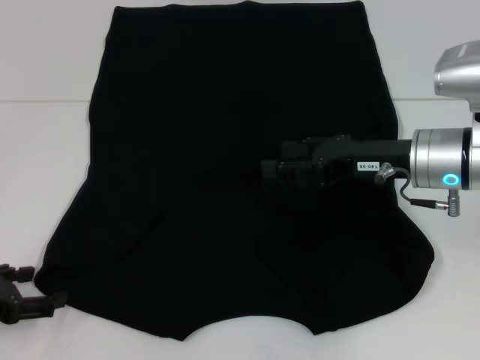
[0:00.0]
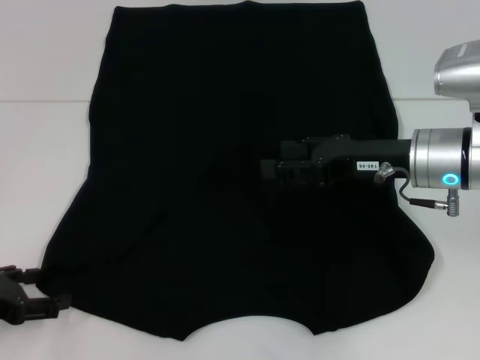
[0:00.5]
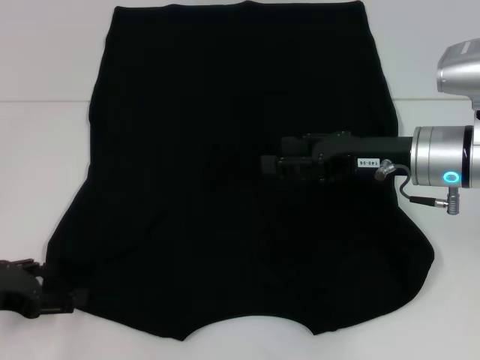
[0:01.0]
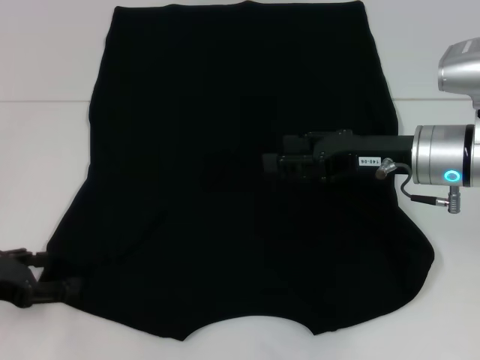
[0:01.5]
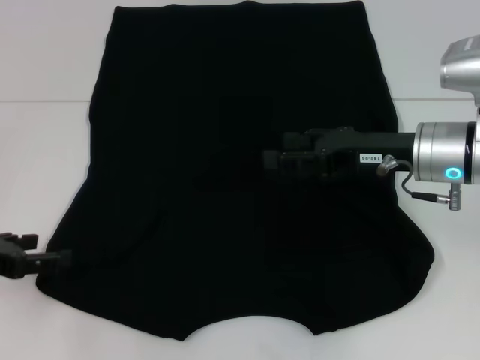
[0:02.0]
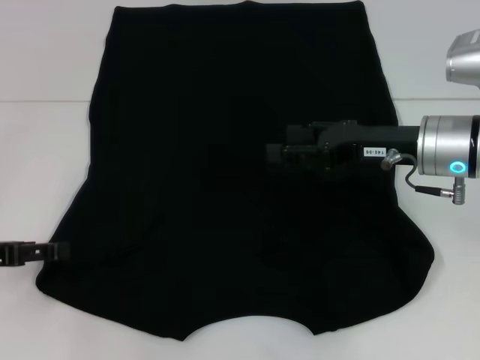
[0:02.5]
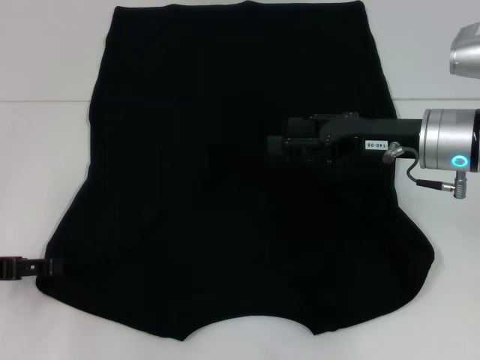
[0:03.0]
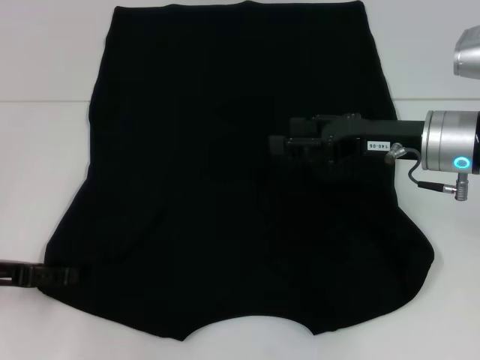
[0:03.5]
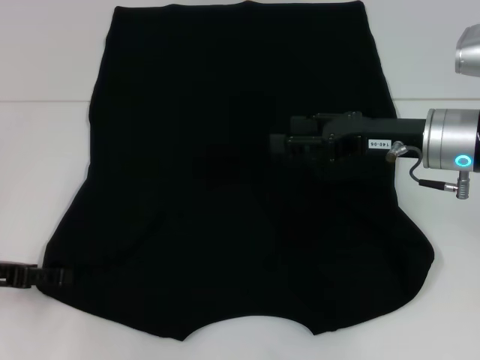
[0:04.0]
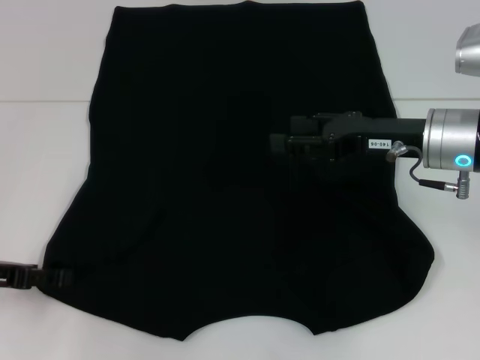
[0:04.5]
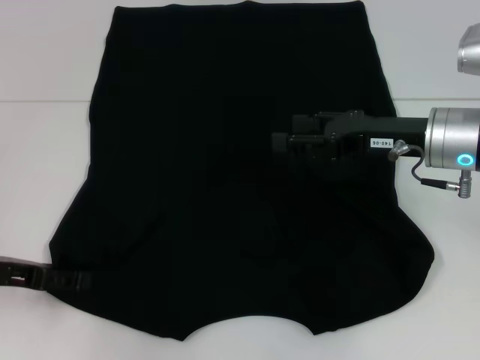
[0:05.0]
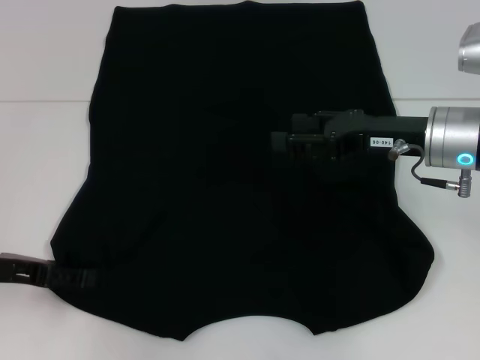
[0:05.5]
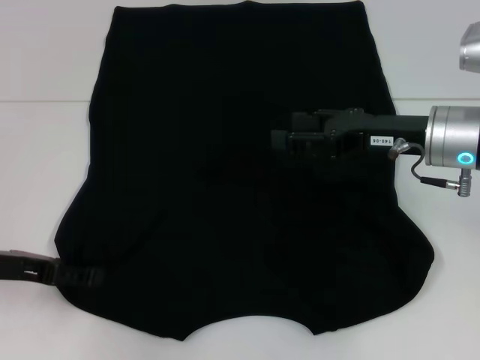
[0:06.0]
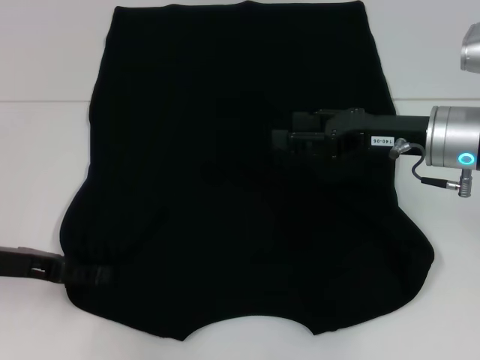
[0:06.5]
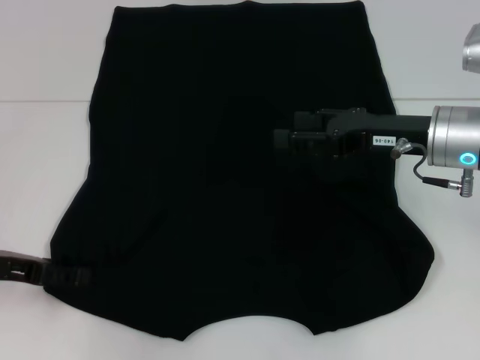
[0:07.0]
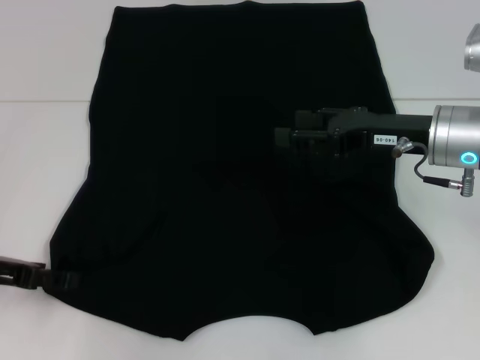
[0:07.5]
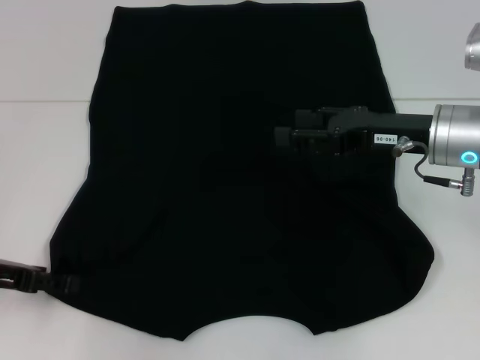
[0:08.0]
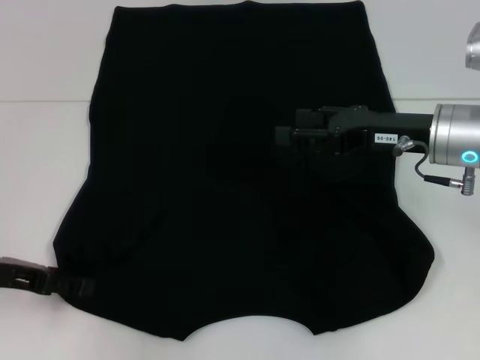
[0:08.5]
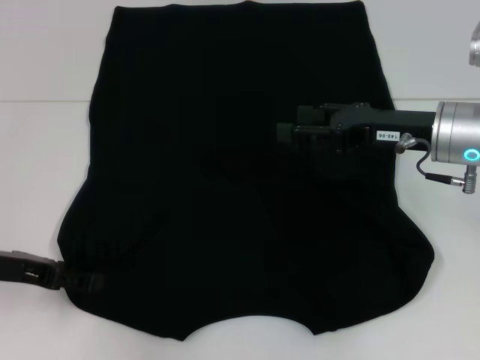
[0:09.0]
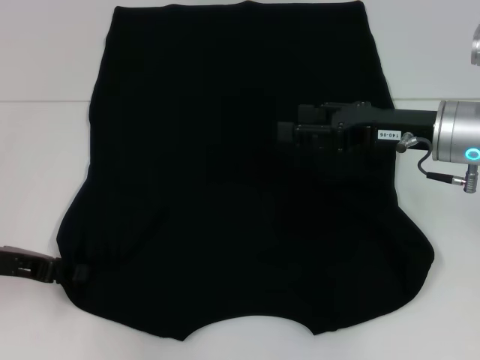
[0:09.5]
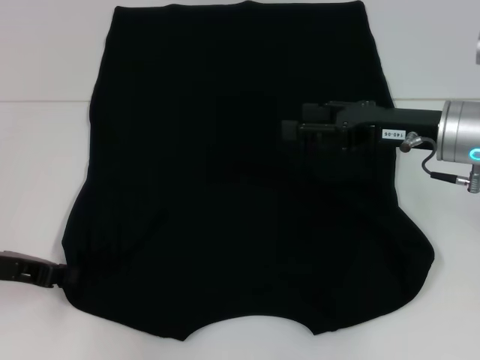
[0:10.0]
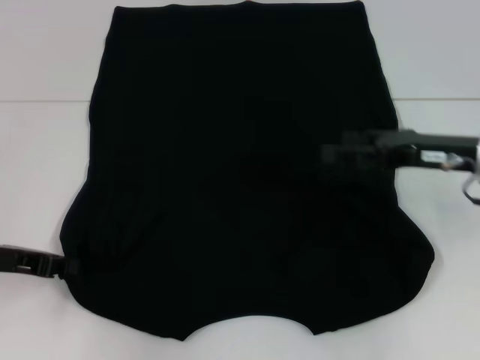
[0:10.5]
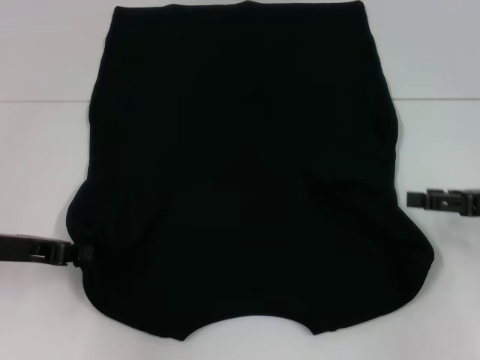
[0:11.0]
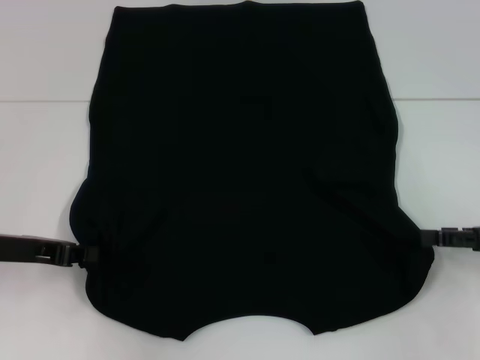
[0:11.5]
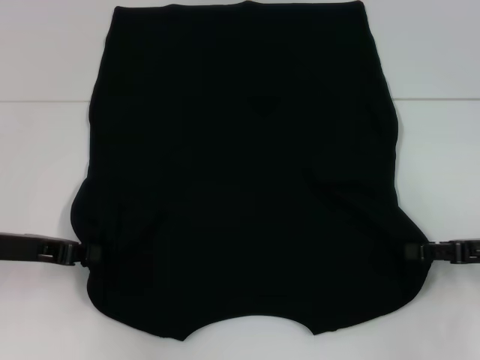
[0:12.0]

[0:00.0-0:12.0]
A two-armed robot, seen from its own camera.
Step, 0:00.0 to 0:10.0: Grab the bottom left corner with your left hand.
0:00.0 to 0:02.0: The grippers make only small movements.
0:02.0 to 0:08.0: There are only small adjustments of the grippers.
0:08.0 to 0:10.0: The left gripper closes up.
0:10.0 to 0:12.0: The right gripper moves to the right, downward and backward, roughly 15 cm.

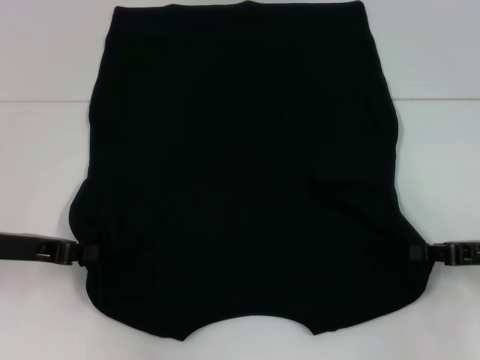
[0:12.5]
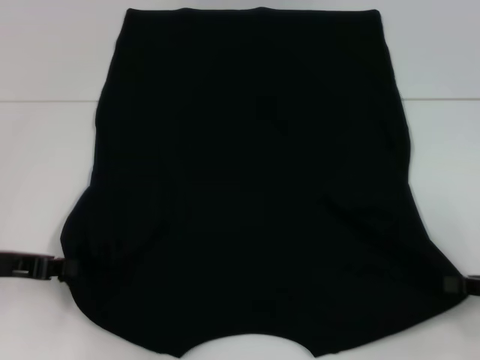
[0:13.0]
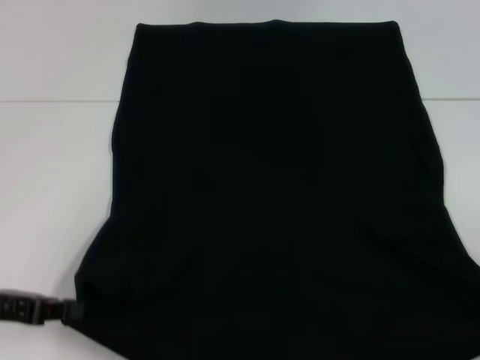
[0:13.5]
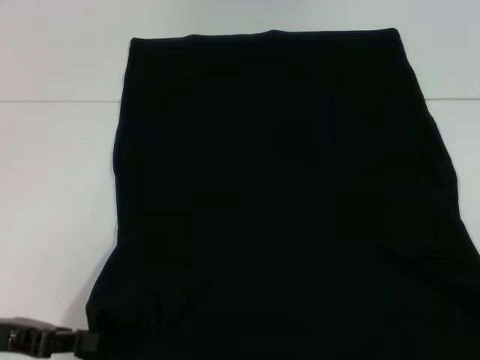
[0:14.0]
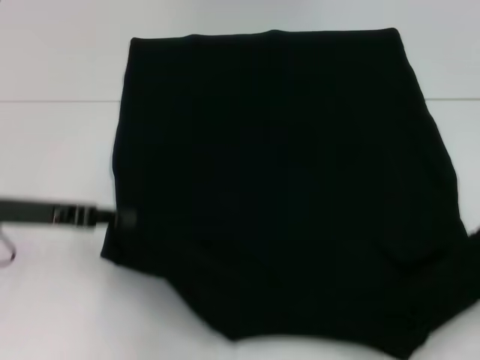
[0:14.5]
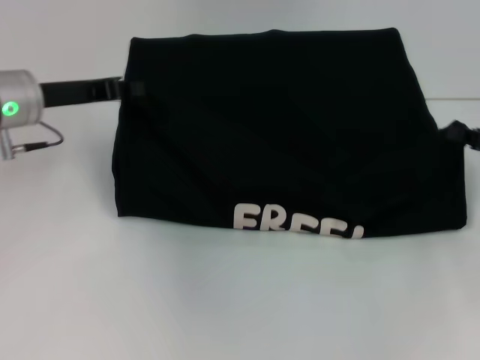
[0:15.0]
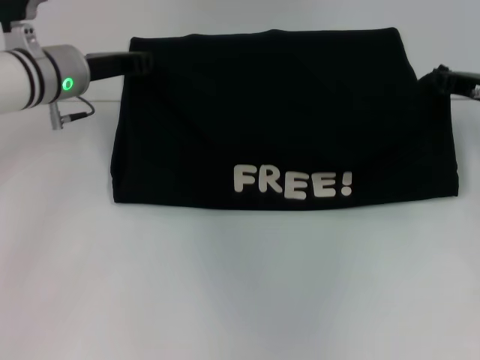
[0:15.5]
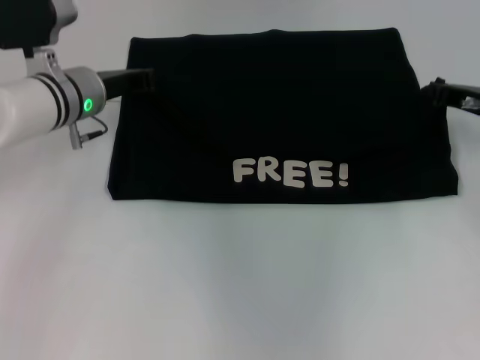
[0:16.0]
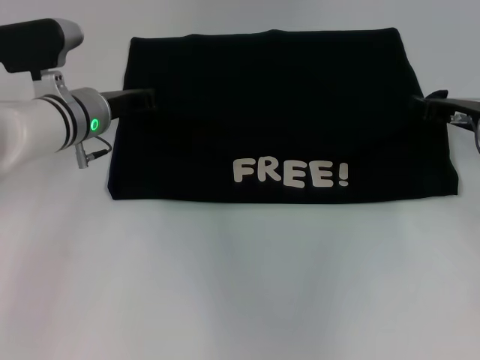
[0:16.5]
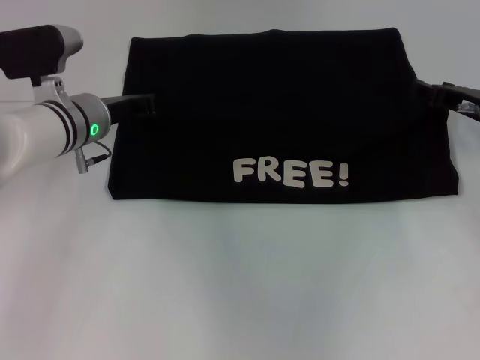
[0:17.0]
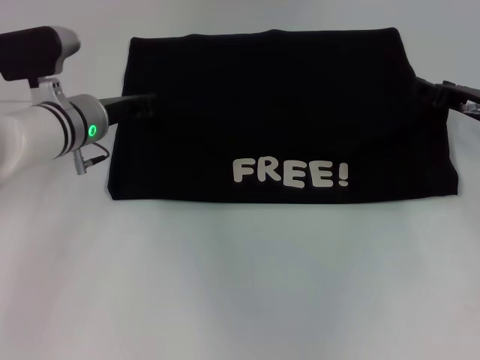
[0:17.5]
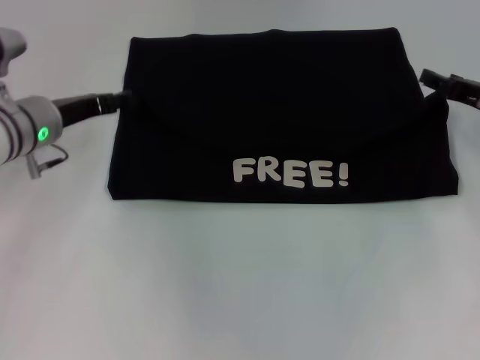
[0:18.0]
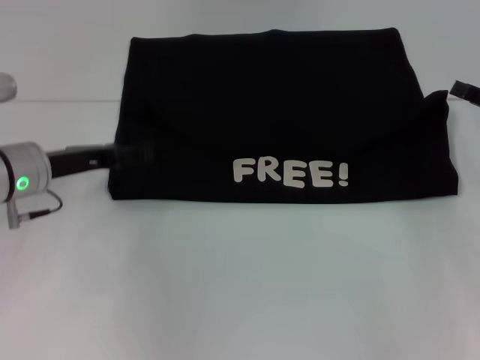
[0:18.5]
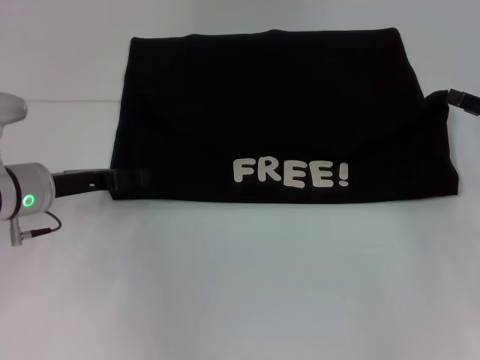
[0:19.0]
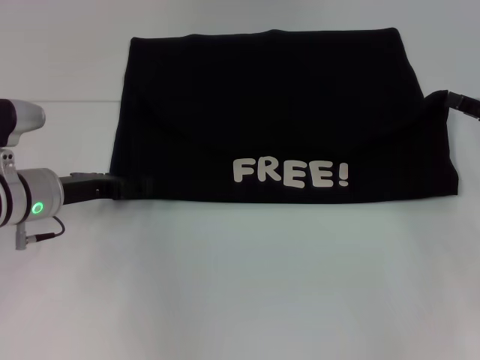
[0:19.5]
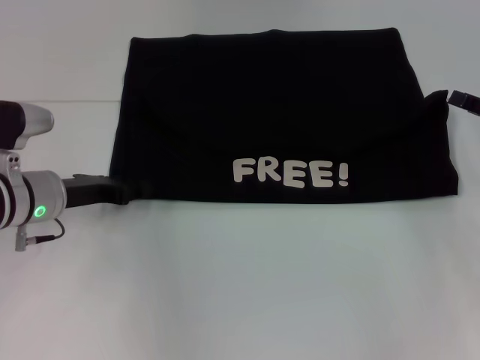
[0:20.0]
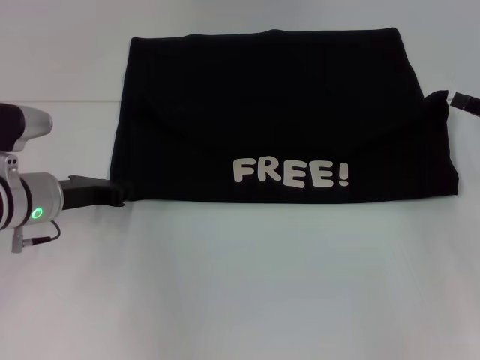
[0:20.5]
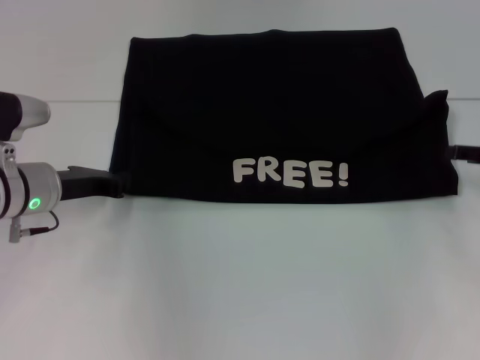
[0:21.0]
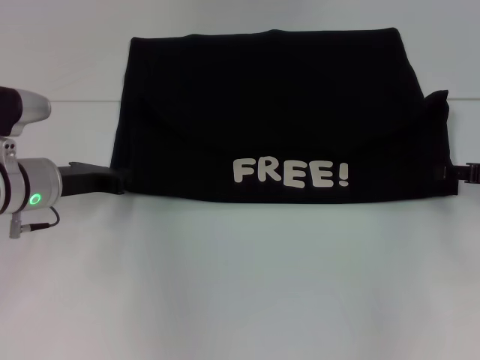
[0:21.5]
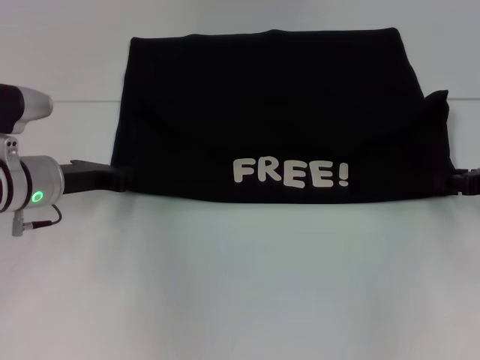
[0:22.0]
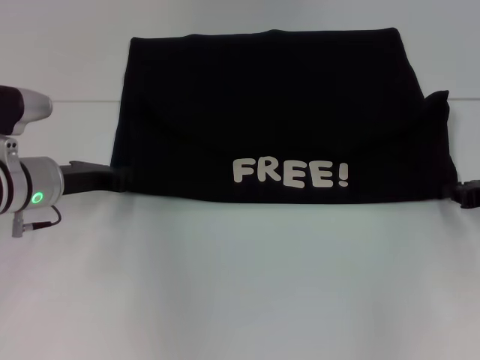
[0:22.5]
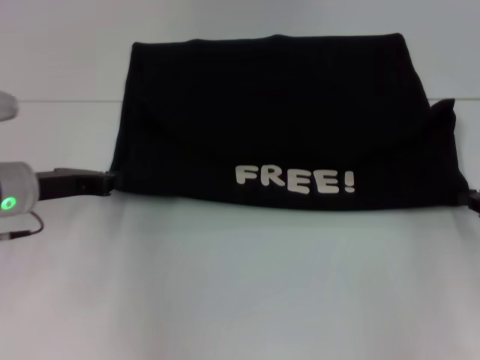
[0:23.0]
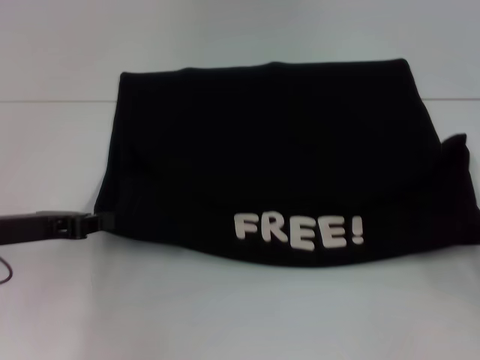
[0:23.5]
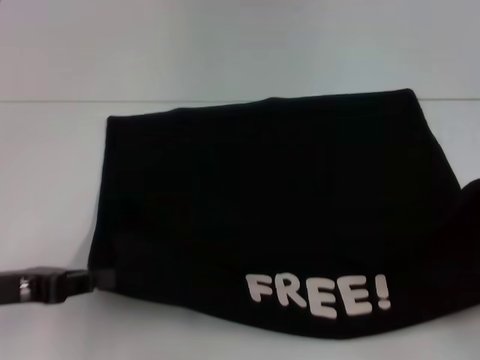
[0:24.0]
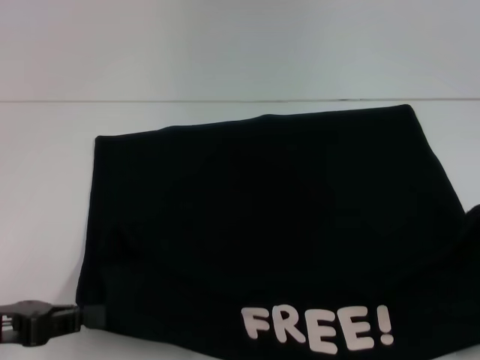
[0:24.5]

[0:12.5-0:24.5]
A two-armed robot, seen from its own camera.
Step, 0:13.0 to 0:17.5: Fold the clothes with your left hand.
Step, 0:13.0 to 0:17.5: Fold the clothes with your right hand.
0:12.5 to 0:14.5: The left gripper travels backward and back again, roughly 10 cm each way. The right gripper heads to the right, covering about 5 cm.
0:14.5 to 0:16.5: The right gripper travels forward and to the left by some 20 cm. Meanwhile the left gripper moves forward and to the right, about 15 cm.
0:16.5 to 0:18.5: The right gripper heads to the right and backward, covering roughly 10 cm, and opens. The left gripper moves backward and to the left, some 10 cm, and opens.
0:18.5 to 0:20.5: The left gripper closes up.
0:20.5 to 0:22.5: The right gripper closes its fingers.
0:22.5 to 0:24.5: Both grippers travel together backward, some 20 cm.

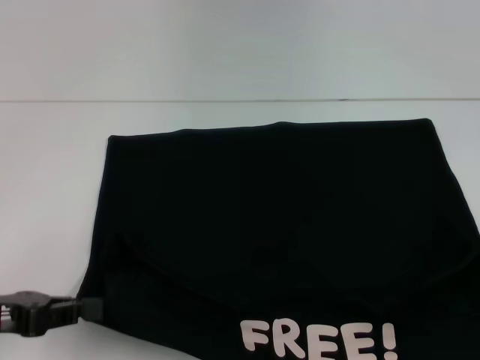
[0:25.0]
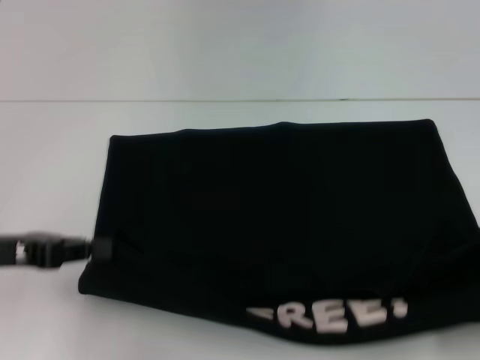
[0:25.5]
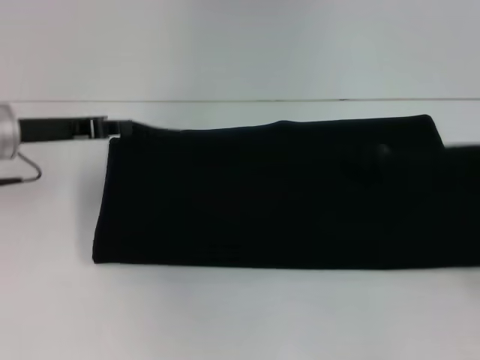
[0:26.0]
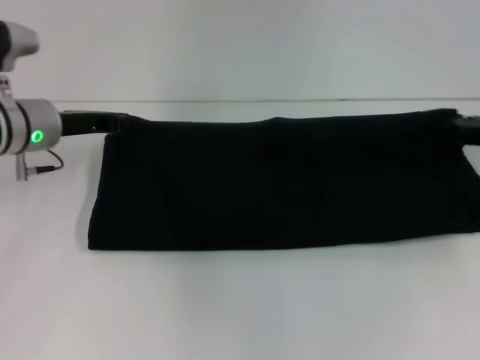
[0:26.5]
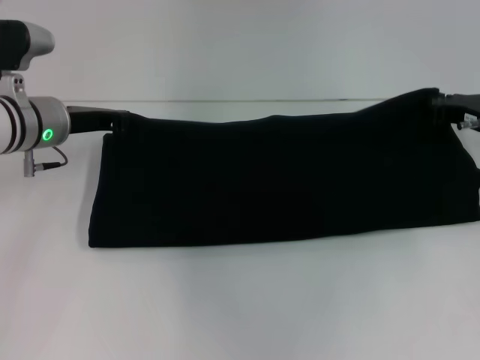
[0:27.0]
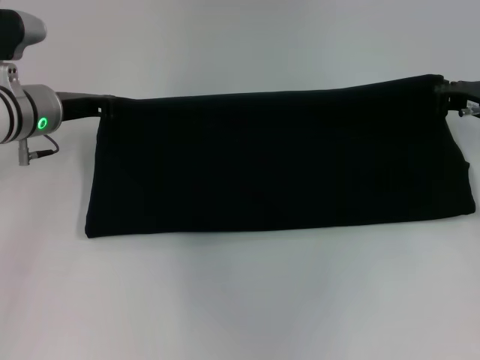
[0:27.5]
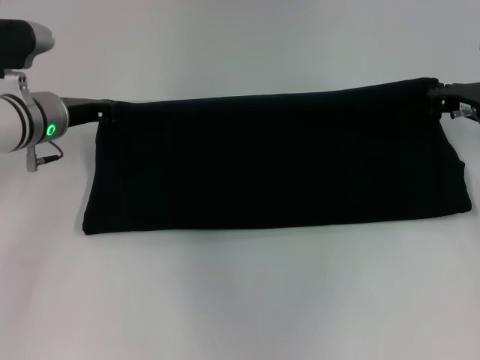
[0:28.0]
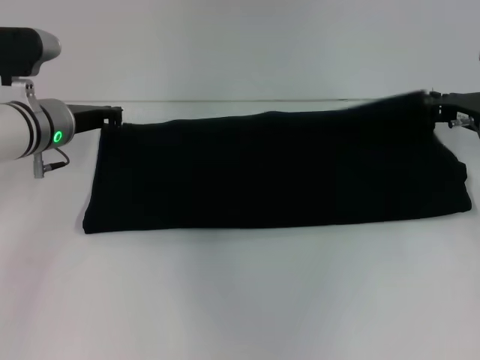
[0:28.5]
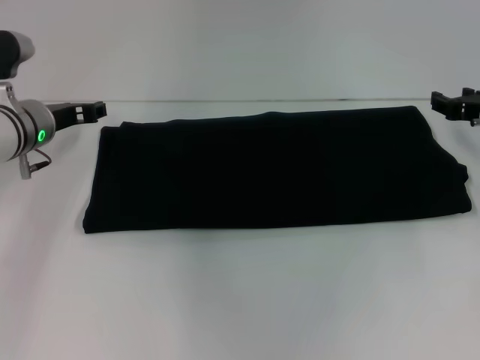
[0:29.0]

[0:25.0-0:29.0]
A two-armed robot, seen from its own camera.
Step, 0:25.0 to 0:28.5: Fold the clothes with your right hand.
0:25.0 to 0:27.0: The two grippers go approximately 25 cm forward.
0:27.0 to 0:29.0: The right gripper opens its fingers; the left gripper opens.
